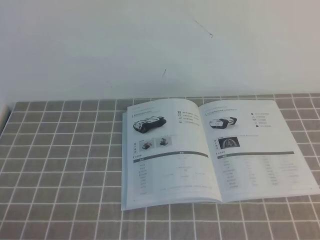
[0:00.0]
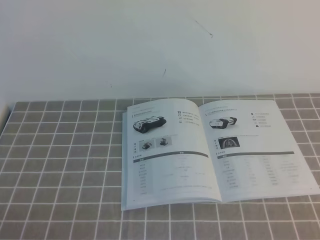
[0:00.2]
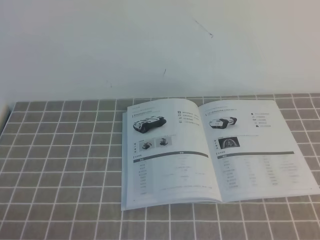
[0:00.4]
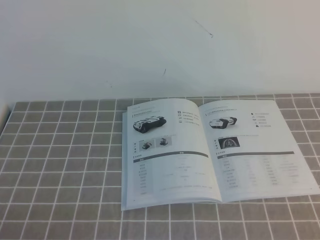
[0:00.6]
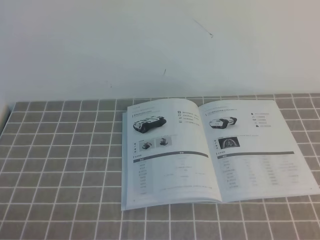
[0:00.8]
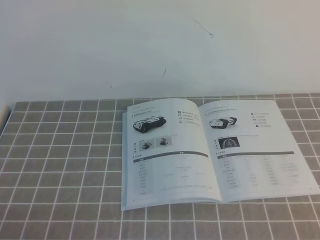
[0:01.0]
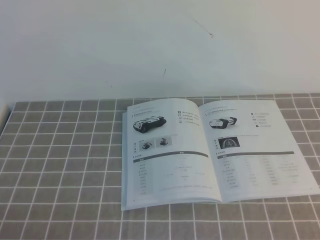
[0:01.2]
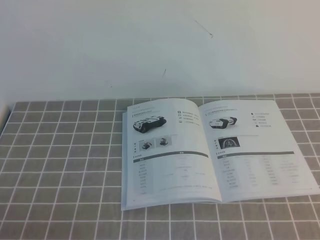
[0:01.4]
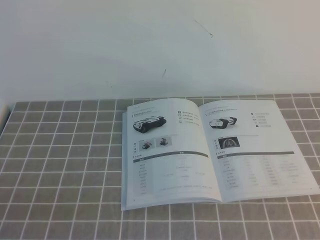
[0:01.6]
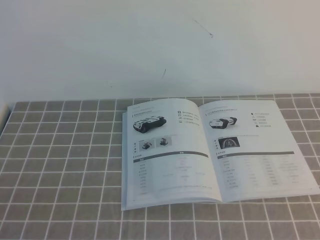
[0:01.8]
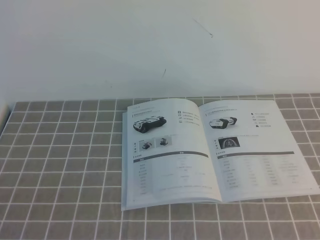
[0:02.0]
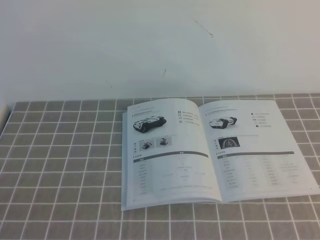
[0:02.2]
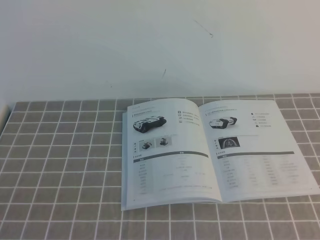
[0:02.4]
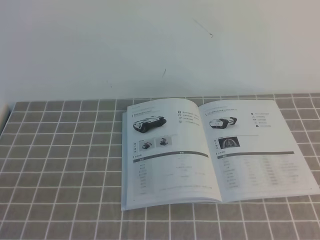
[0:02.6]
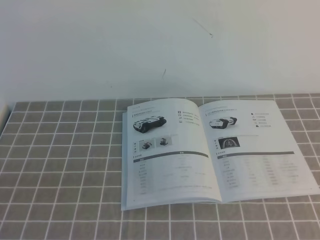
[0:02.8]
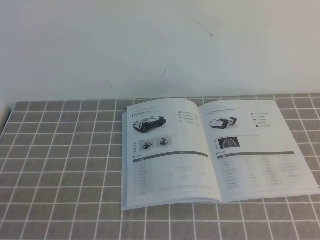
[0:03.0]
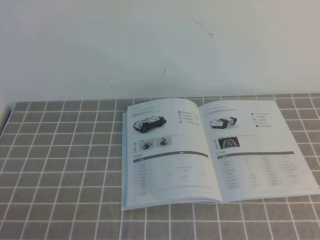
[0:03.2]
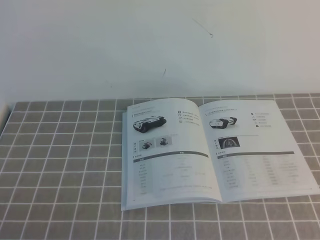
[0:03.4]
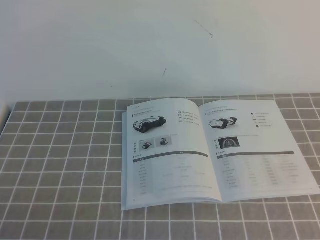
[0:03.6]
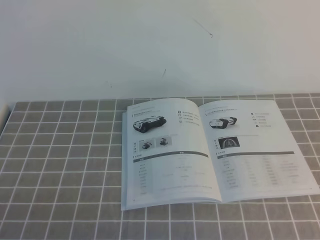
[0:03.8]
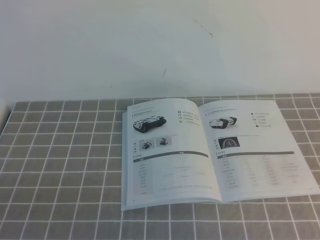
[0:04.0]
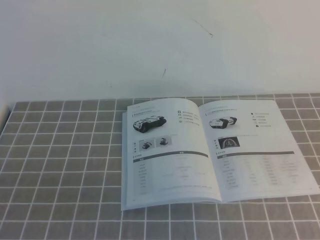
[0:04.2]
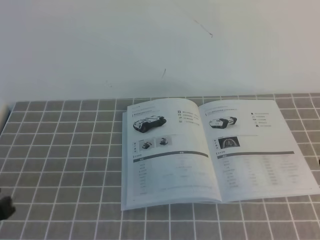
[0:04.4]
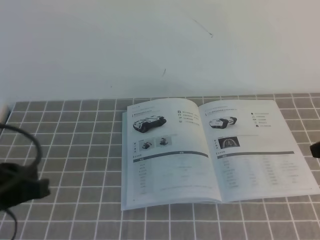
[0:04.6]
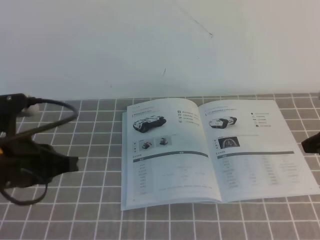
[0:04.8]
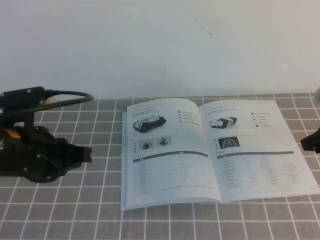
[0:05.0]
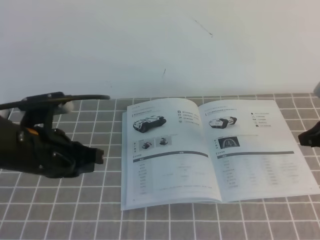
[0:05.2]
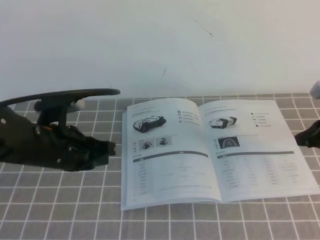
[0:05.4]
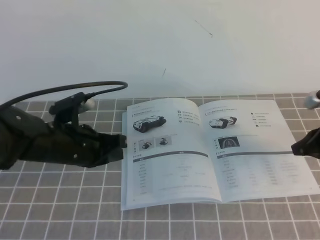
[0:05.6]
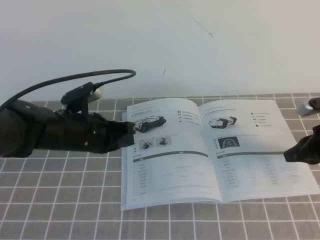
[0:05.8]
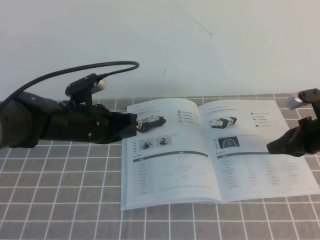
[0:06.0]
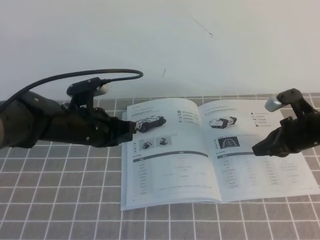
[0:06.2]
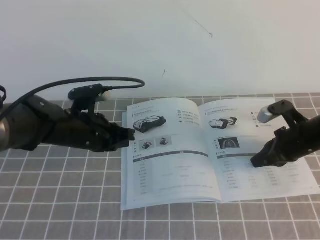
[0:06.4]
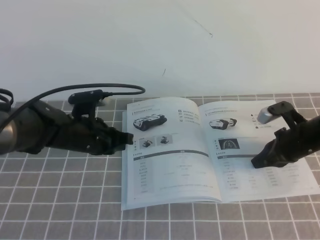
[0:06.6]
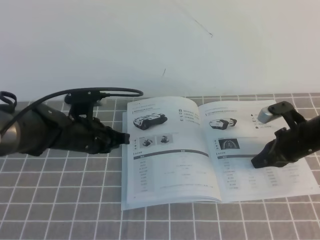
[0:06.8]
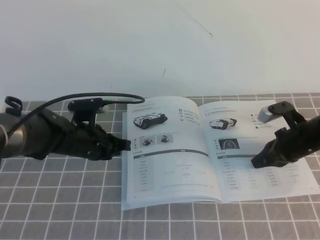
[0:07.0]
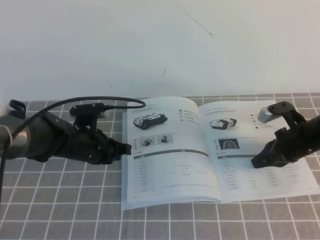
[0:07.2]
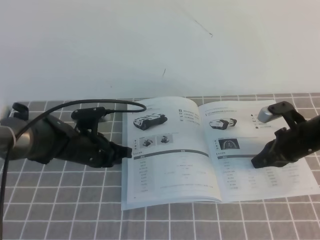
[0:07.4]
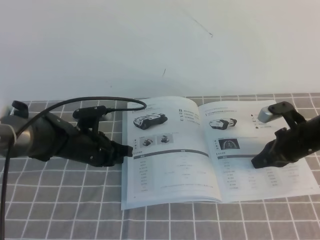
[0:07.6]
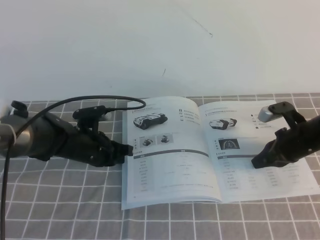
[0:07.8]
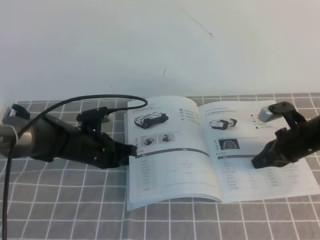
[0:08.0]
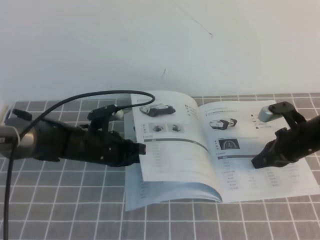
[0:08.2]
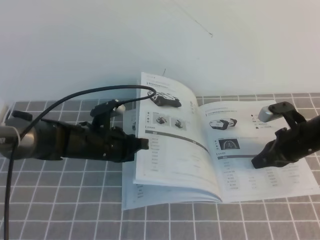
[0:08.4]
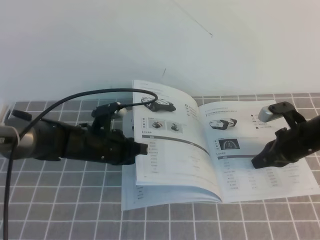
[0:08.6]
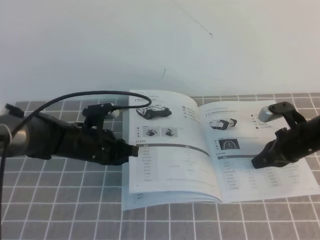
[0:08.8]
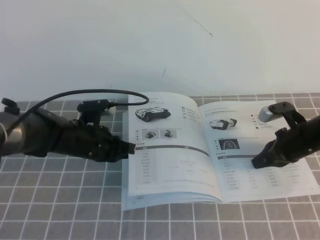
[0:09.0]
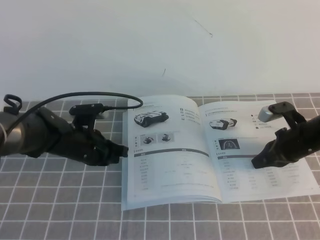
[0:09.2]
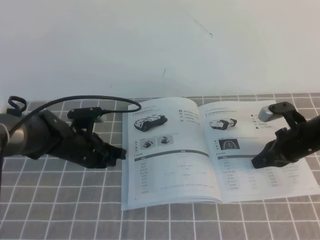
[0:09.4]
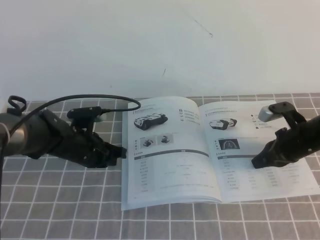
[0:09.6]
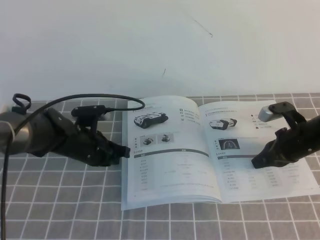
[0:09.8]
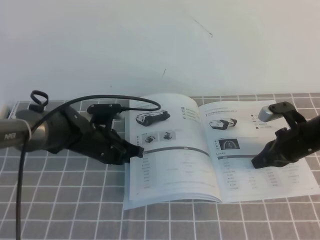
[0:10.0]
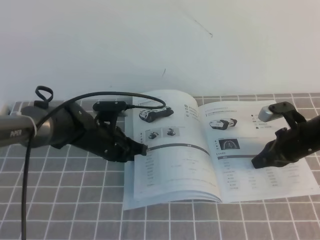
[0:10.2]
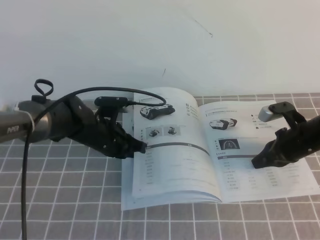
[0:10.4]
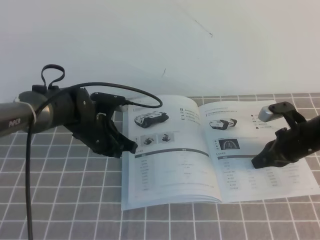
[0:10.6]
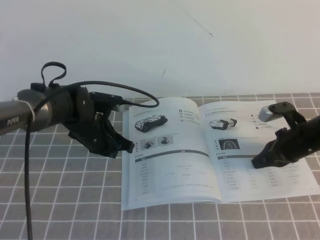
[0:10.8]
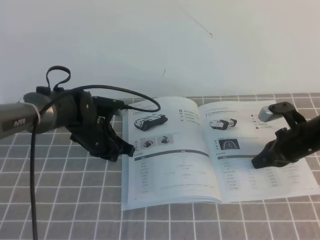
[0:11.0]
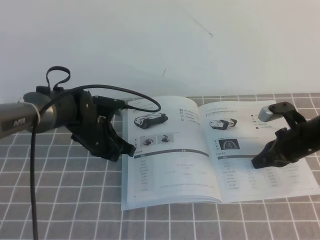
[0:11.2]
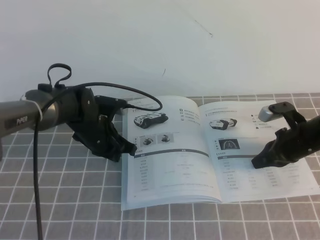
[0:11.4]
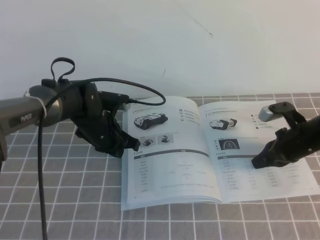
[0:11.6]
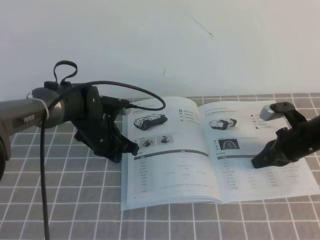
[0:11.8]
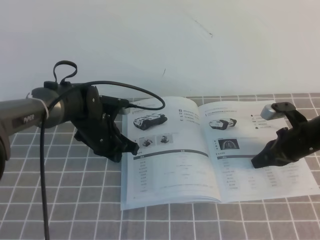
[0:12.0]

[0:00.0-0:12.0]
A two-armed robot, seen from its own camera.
Task of the whole recording: on the grey tablecloth, hold the book with one hand and close it with the other.
0:04.4 to 0:06.0: The right gripper moves forward and downward, approximately 20 cm; the left gripper shifts approximately 25 cm forward and to the right.
0:06.0 to 0:07.6: The left gripper shifts approximately 10 cm downward.
0:07.6 to 0:10.4: The grippers stay close to where they were, moving slightly.
0:10.4 to 0:12.0: The grippers stay close to where they were, moving slightly.

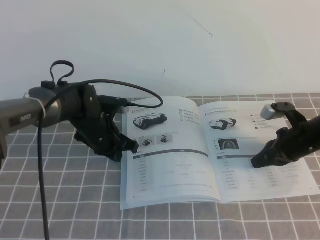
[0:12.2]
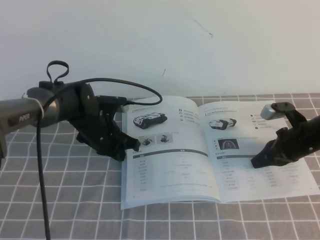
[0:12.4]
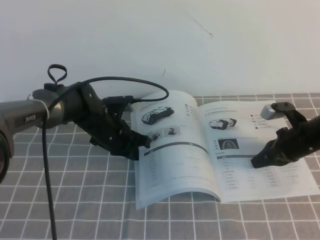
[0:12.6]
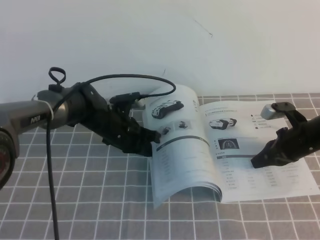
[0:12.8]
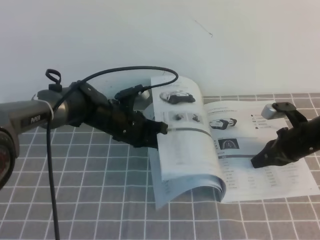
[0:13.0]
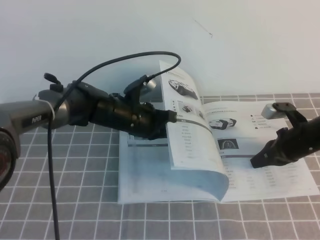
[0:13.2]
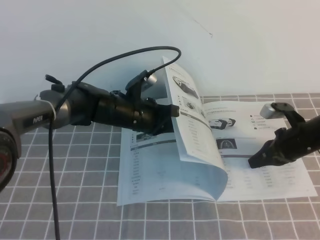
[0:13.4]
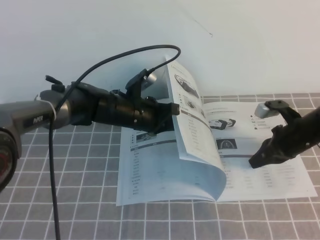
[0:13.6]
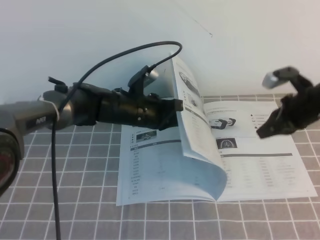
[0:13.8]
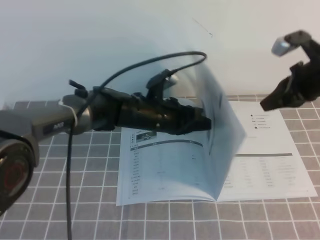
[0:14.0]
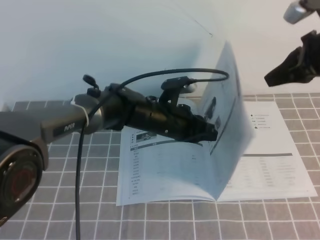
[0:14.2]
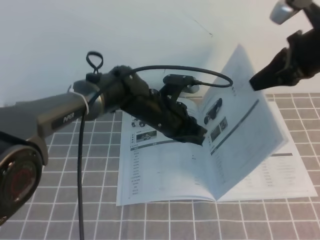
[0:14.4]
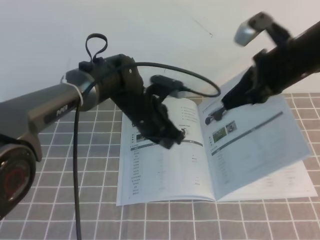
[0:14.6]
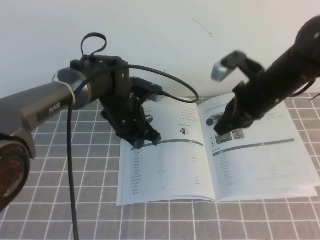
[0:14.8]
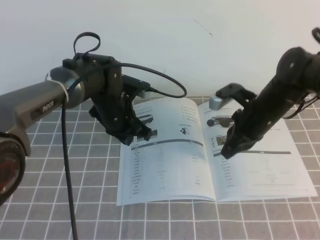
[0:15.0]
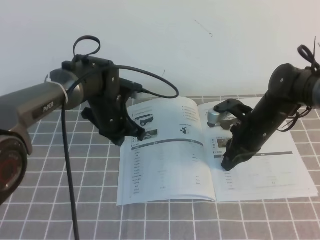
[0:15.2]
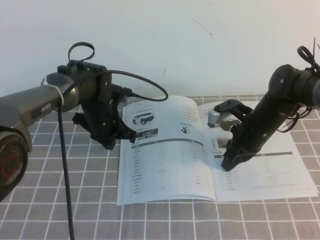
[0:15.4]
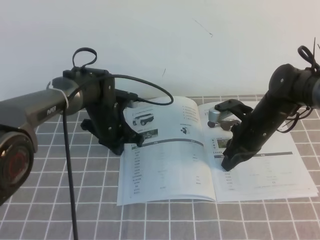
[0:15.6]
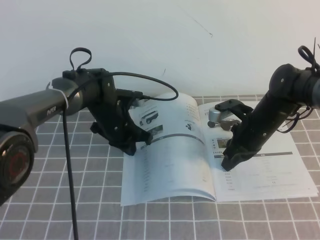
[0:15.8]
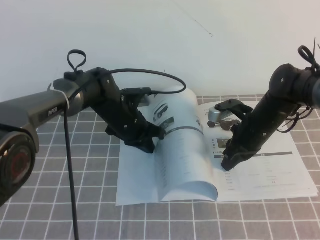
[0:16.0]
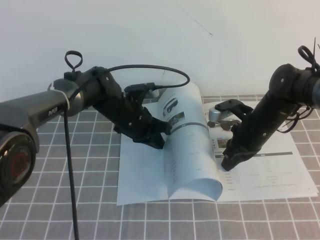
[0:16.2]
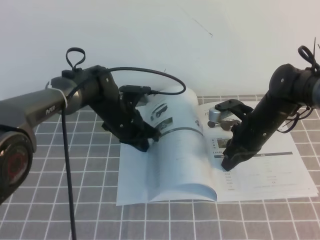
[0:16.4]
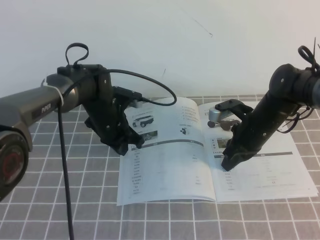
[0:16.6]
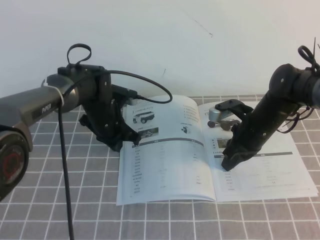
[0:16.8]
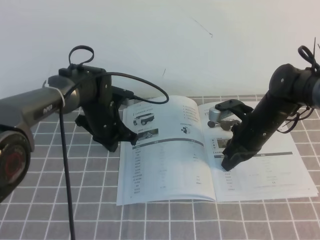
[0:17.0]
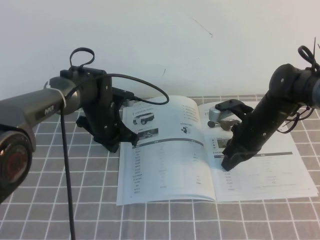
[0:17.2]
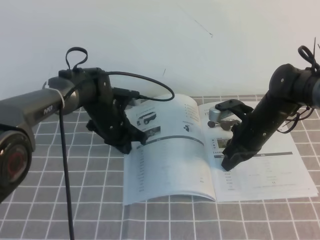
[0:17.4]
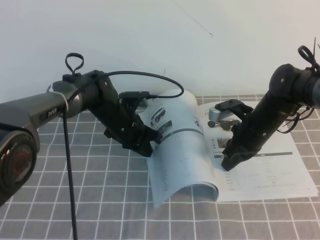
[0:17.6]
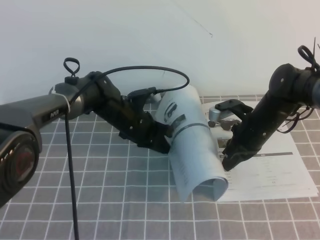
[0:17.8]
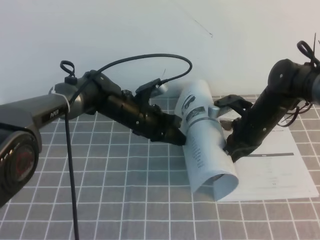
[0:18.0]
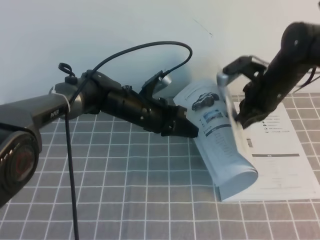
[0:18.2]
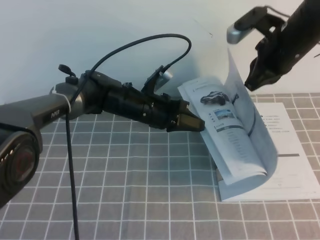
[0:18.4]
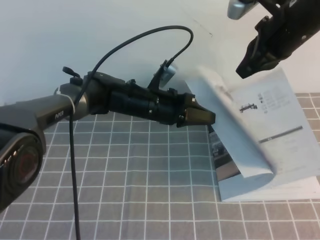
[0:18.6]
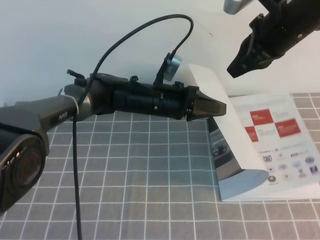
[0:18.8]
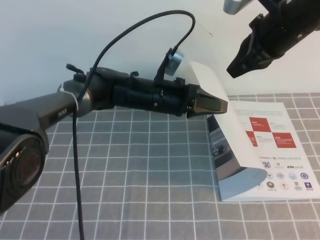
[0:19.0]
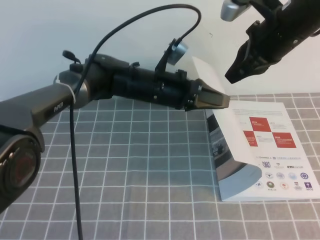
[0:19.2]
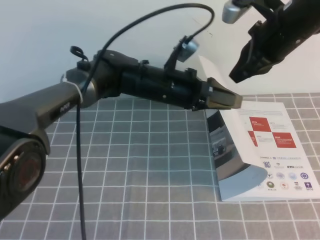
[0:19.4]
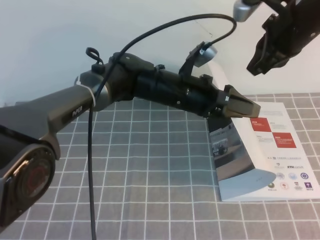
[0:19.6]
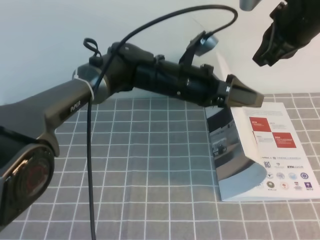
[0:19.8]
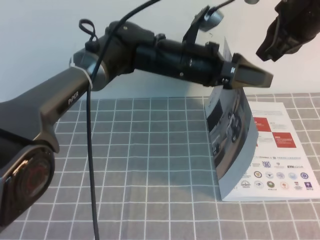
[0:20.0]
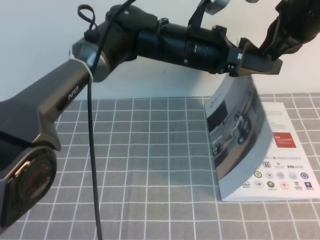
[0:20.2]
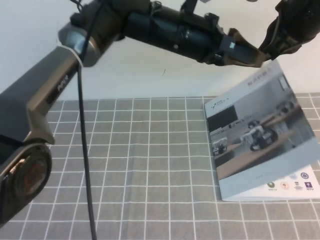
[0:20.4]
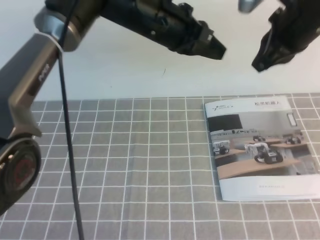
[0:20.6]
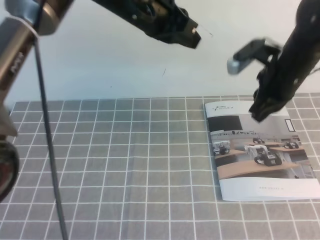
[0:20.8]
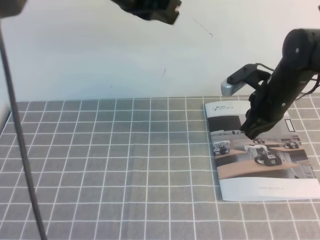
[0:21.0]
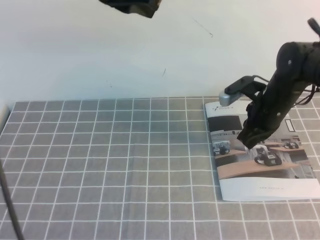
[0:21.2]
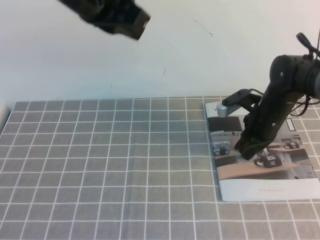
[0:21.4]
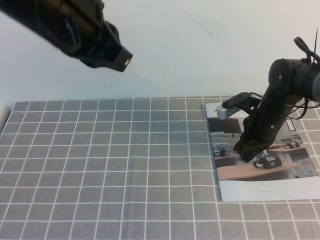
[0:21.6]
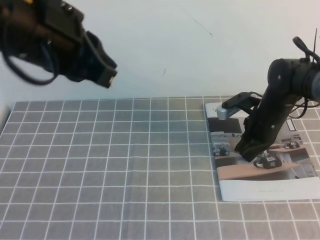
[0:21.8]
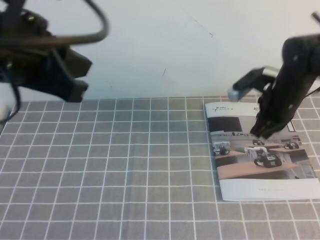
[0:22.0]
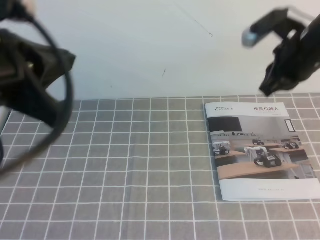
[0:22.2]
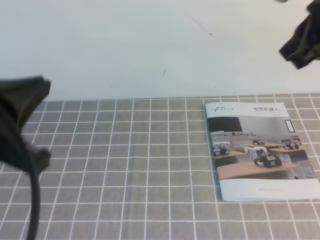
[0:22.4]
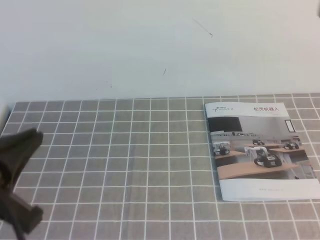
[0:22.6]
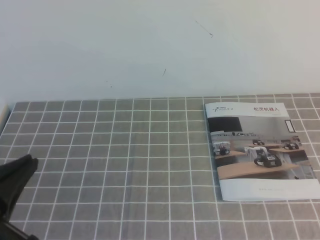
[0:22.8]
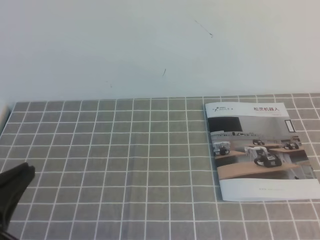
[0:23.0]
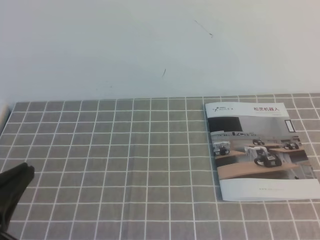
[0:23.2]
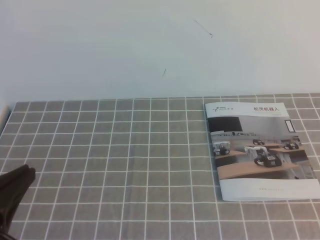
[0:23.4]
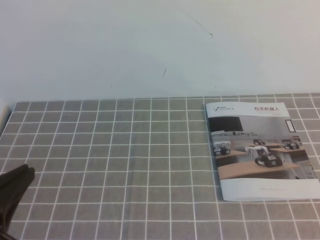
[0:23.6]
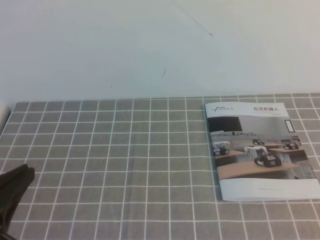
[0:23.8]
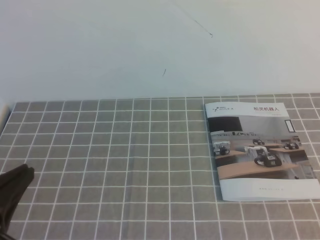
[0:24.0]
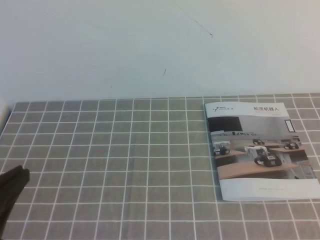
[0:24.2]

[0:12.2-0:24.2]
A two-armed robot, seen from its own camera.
Task of the whole recording: on the grey tablecloth, hold the book with one hand and close it with the other.
0:12.2 to 0:13.8: The right gripper goes some 10 cm upward. Meanwhile the left gripper shifts roughly 5 cm to the right.
0:13.8 to 0:15.2: The right gripper moves to the left, approximately 10 cm, and moves roughly 15 cm upward and comes back. The left gripper travels to the left by about 5 cm.
0:16.6 to 0:18.2: The right gripper goes some 10 cm upward. Meanwhile the left gripper shifts some 5 cm to the right.
0:18.2 to 0:19.8: The right gripper moves upward, some 15 cm. The left gripper heads upward and to the right, covering about 10 cm, and opens up.
0:19.8 to 0:21.2: The left gripper goes some 20 cm upward and to the left, and closes its fingers. Meanwhile the right gripper moves downward, approximately 20 cm.
0:21.2 to 0:22.6: The left gripper is displaced backward, to the left and downward by some 30 cm. Meanwhile the right gripper goes some 30 cm upward and backward.
0:22.6 to 0:24.2: The right gripper shifts approximately 25 cm backward and downward; the left gripper travels downward by approximately 5 cm.
